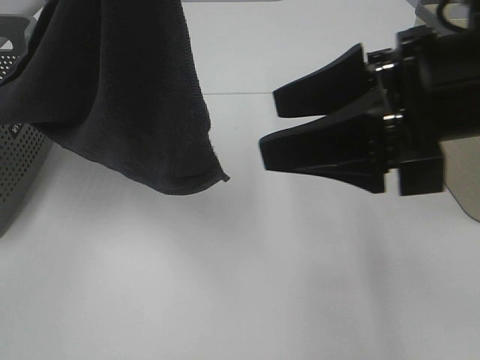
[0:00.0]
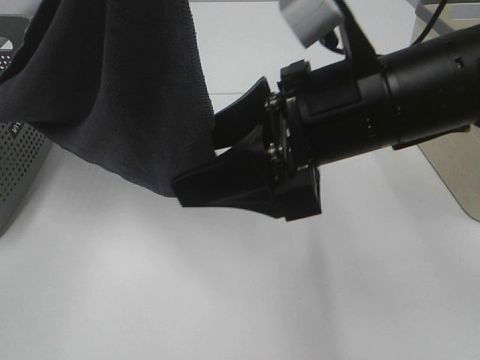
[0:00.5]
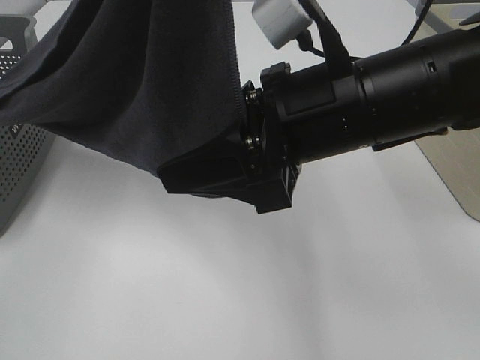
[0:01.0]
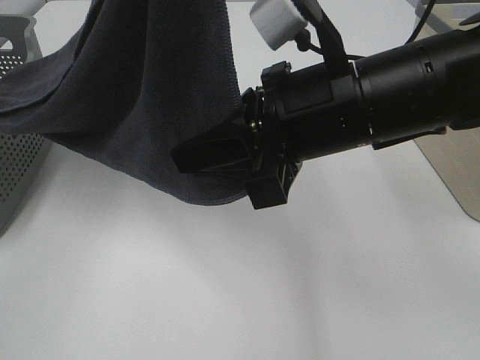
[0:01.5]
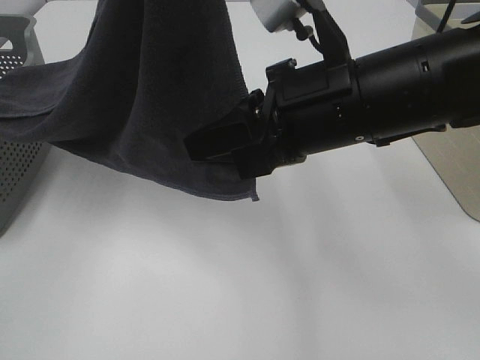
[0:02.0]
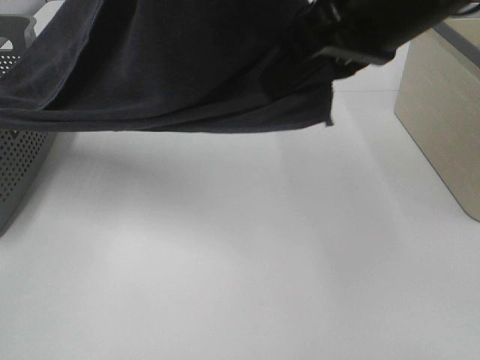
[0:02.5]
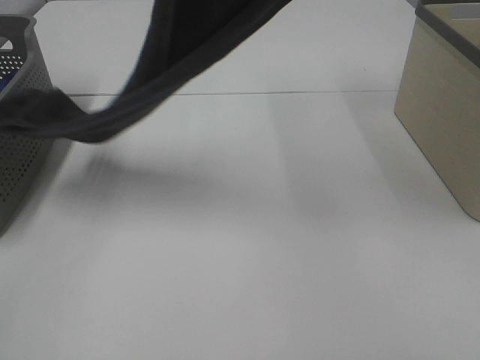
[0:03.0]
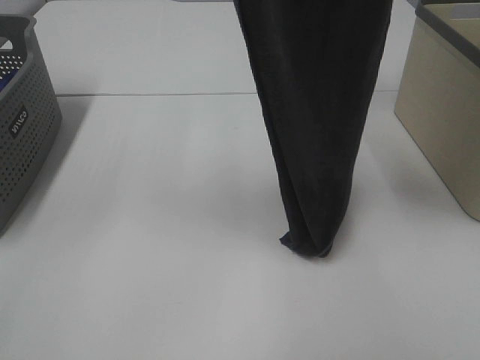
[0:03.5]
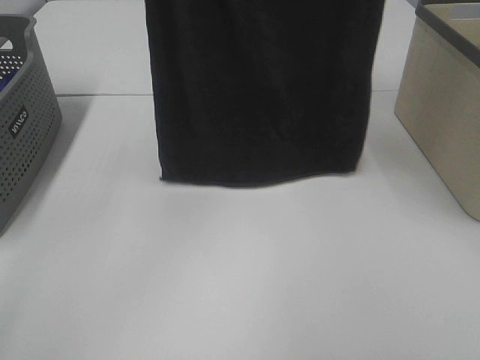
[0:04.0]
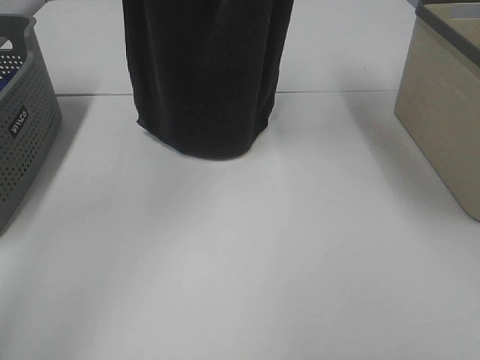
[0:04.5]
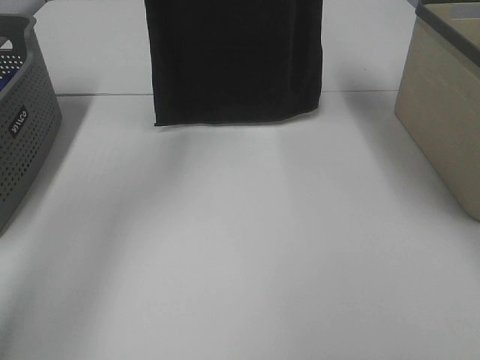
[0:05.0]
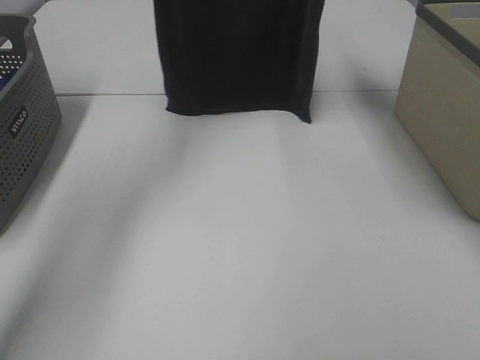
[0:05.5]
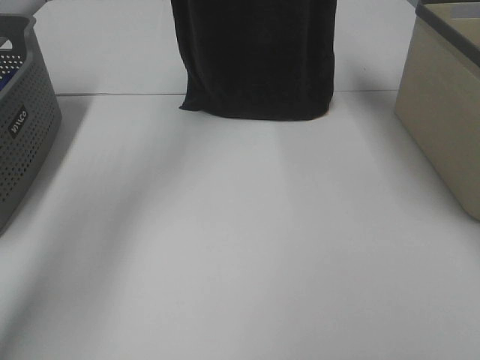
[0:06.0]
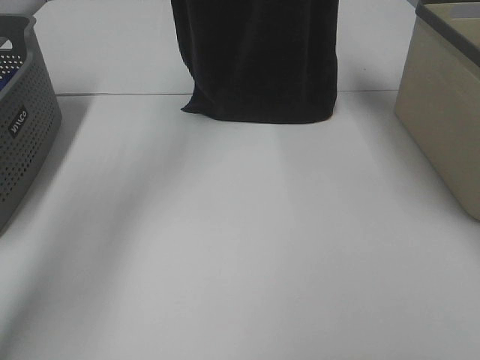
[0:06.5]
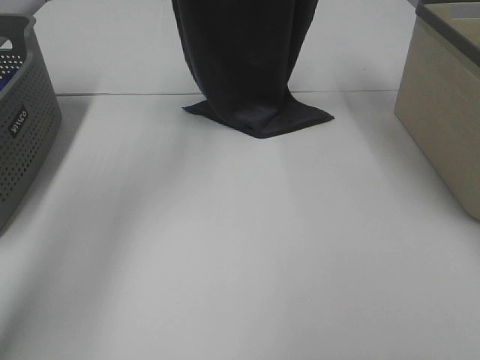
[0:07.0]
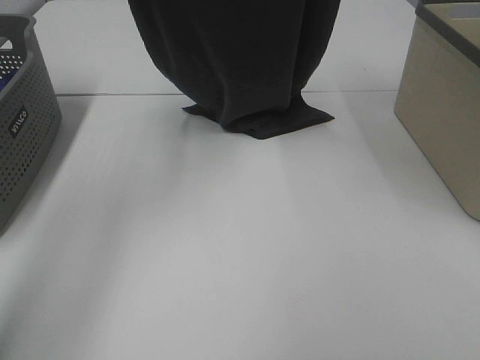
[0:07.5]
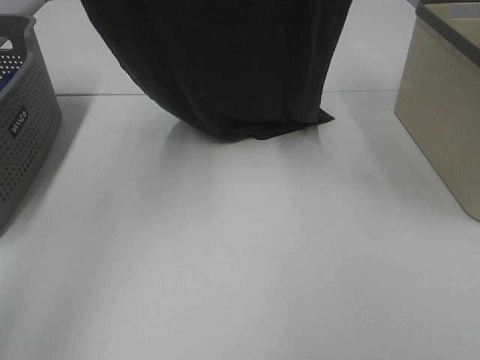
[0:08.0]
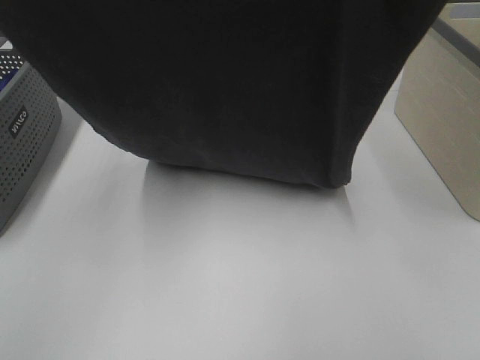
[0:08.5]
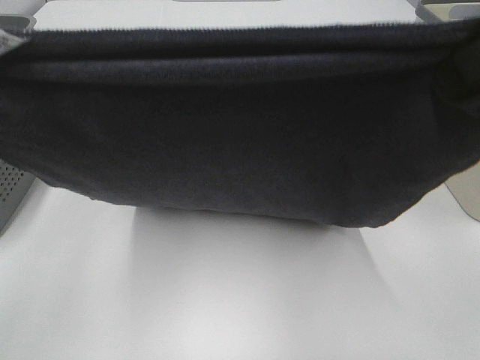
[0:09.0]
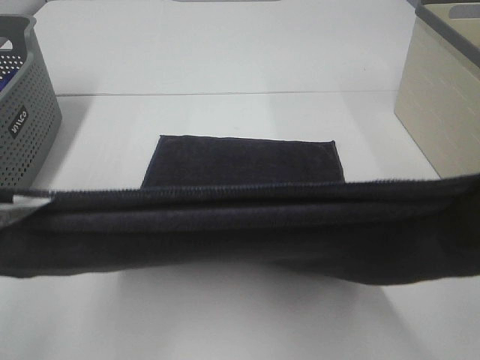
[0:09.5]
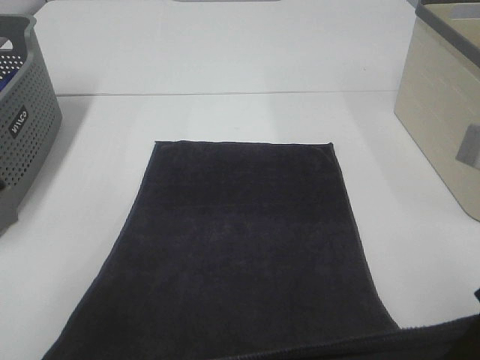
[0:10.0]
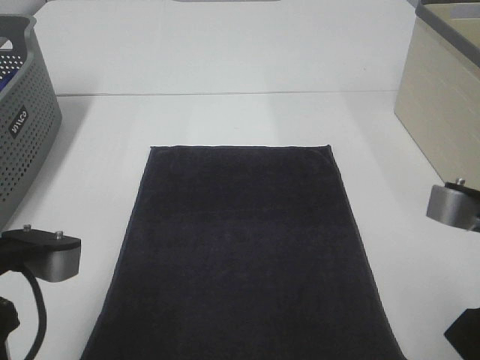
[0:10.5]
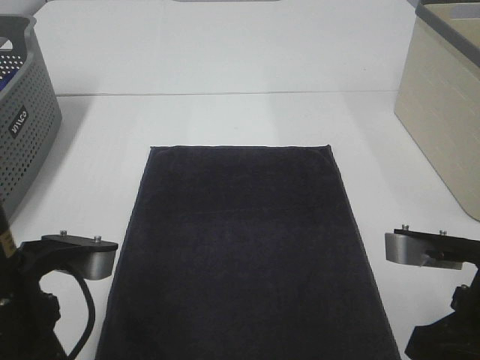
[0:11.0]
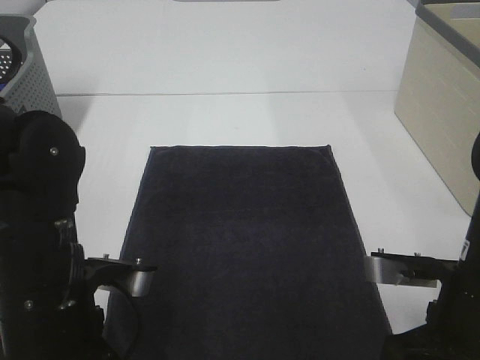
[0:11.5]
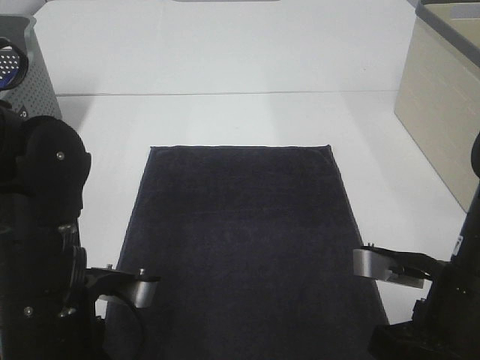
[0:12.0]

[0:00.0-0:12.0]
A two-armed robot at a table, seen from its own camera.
Task of the whole recording: Remove the towel and place it.
Step, 0:02.0 to 0:08.5: Left hand: spread the grey towel flat on the table.
Step, 0:02.0 to 0:08.5: Right hand: spread the grey towel flat on the table.
0:00.0 to 0:02.0: The right gripper shifts approximately 5 cm to the left, and closes its fingers.
0:02.0 to 0:04.0: The right gripper is displaced upward by some 30 cm. The left gripper shifts about 15 cm forward and to the left.
0:04.0 to 0:06.0: The right gripper is displaced forward by roughly 15 cm; the left gripper moves forward and downward, some 20 cm.
0:06.0 to 0:08.0: The two grippers go about 15 cm backward.
0:08.0 to 0:10.0: The grippers both shift backward and downward by some 30 cm.
0:10.0 to 0:12.0: The left gripper is displaced downward and to the right by some 10 cm, while the right gripper shifts about 10 cm downward.

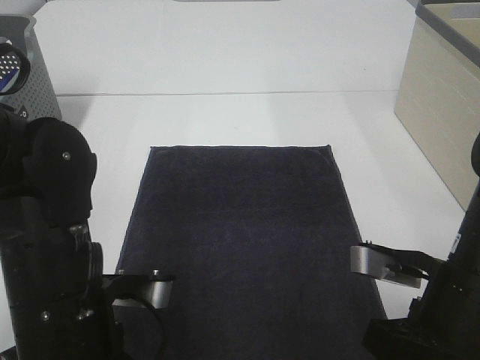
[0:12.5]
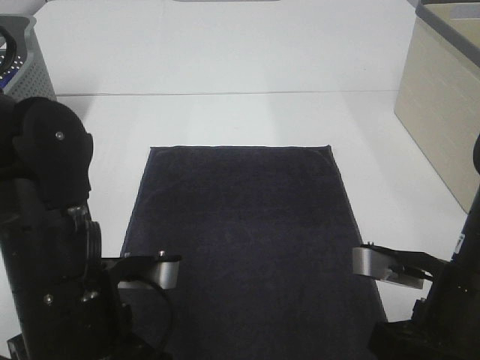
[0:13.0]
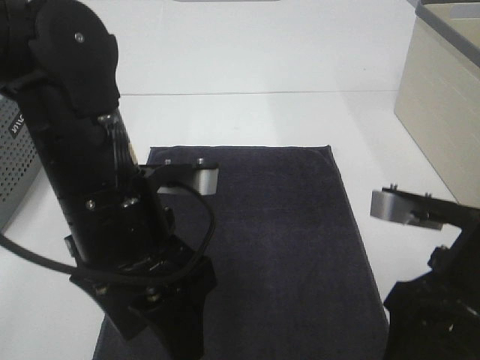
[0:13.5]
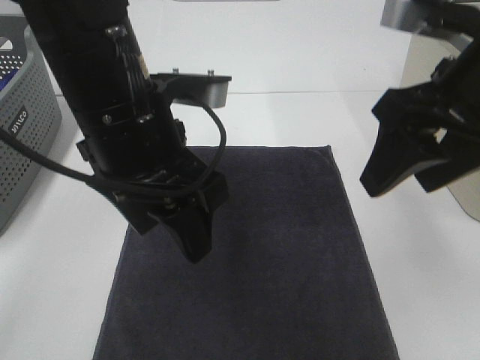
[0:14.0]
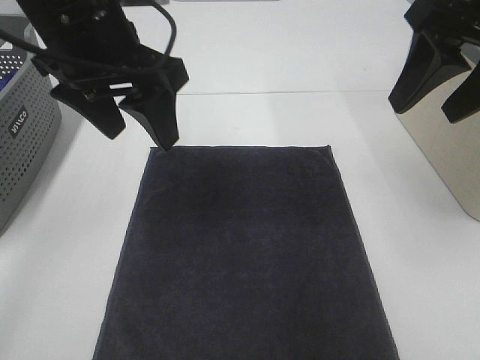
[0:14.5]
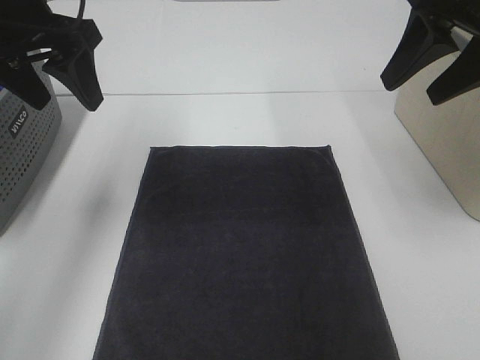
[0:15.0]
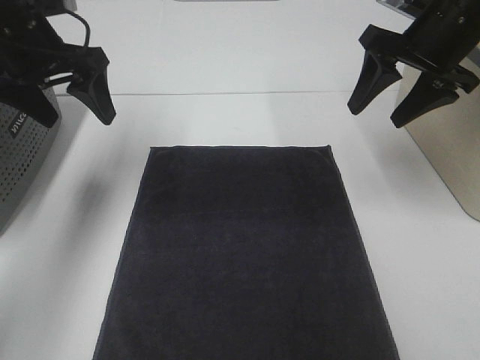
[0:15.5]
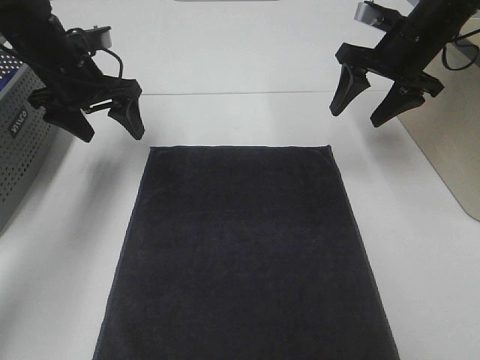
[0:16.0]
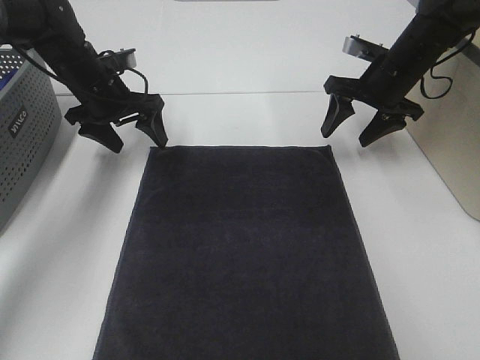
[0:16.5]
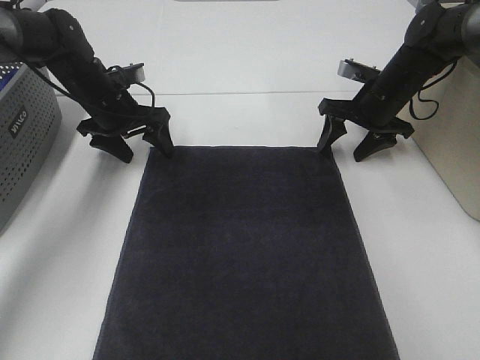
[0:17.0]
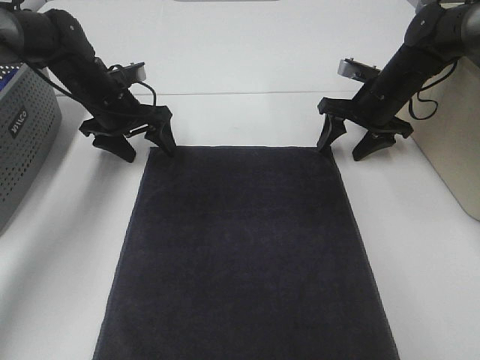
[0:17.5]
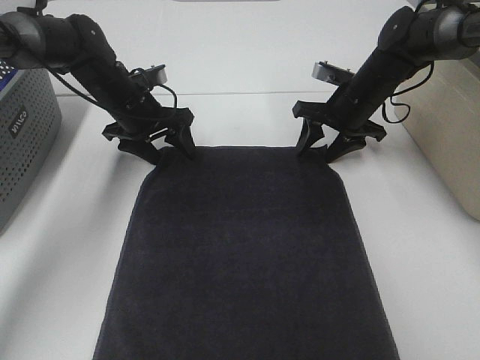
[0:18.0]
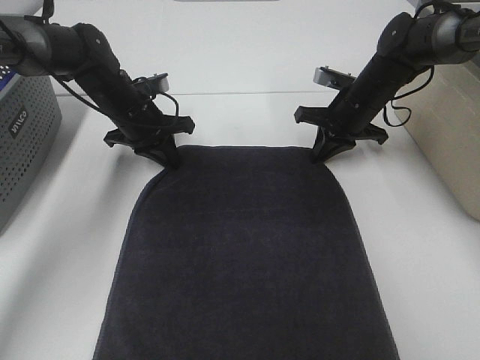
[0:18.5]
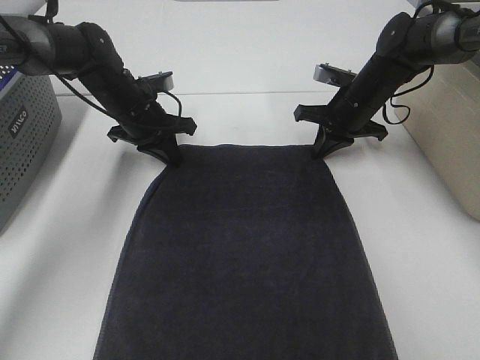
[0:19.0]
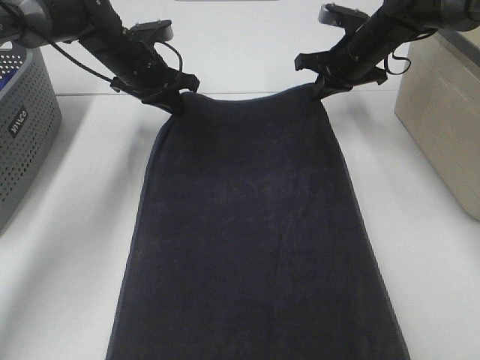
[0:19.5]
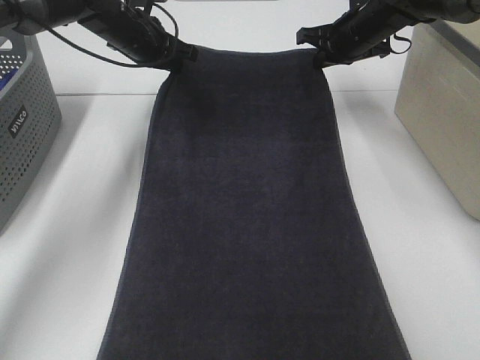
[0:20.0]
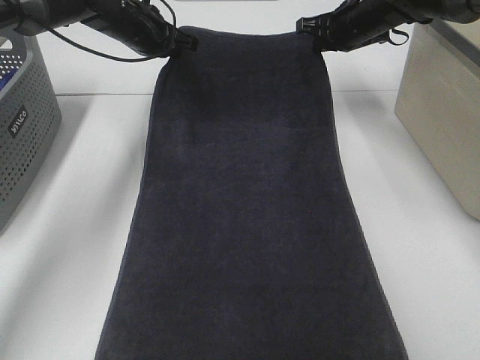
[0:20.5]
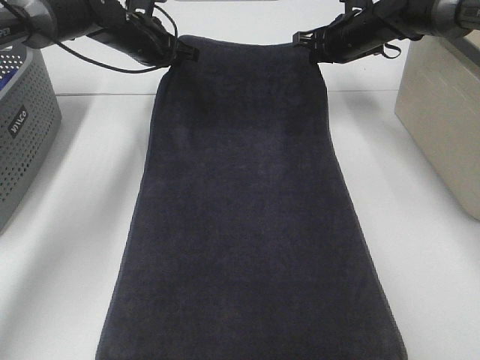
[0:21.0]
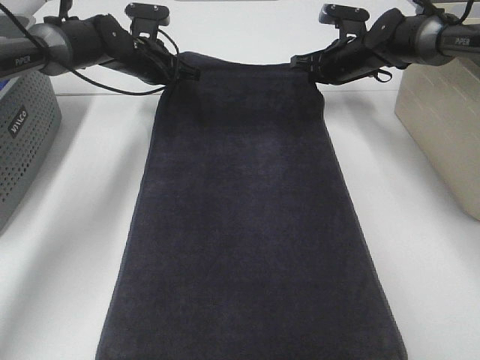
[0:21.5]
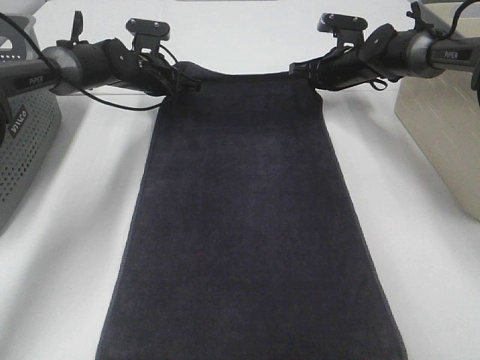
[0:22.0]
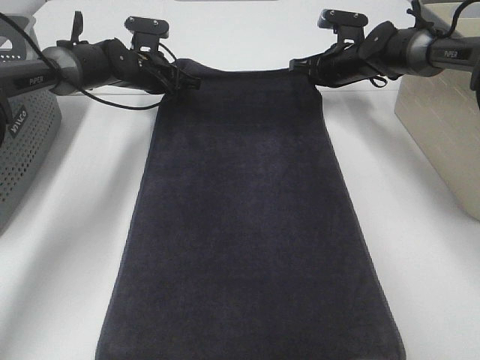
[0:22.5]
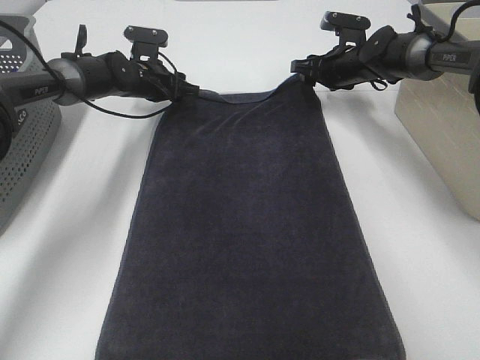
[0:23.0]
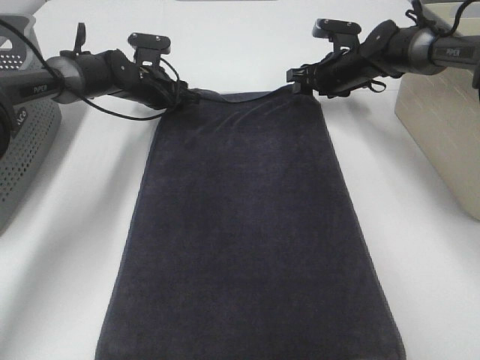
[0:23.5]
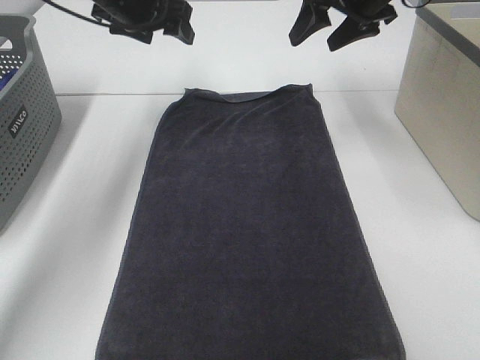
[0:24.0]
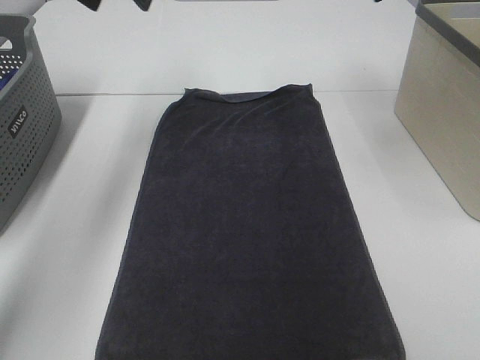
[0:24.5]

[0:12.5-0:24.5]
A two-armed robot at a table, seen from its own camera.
Task of the whole recording: Remove the towel and place it.
Step, 0:12.5 to 0:16.5: Left hand:adjust the gray towel.
Step, 0:12.5 to 0:16.5: Right hand:adjust the gray towel.
0:12.5 to 0:14.5: The grippers both shift upward and forward by about 20 cm.
0:14.5 to 0:16.5: The right gripper goes some 25 cm forward and downward. Meanwhile the left gripper travels forward, downward and to the left by roughly 25 cm.
0:16.5 to 0:18.5: The left gripper shifts by approximately 5 cm, and closes its fingers; the right gripper shifts some 5 cm downward, and closes up.
0:18.5 to 0:20.5: Both grippers travel together upward and forward, roughly 10 cm.
0:20.5 to 0:22.5: Both grippers move downward, approximately 10 cm.
0:22.5 to 0:24.5: Both grippers travel together upward and backward, approximately 30 cm. The right gripper opens; the left gripper opens.

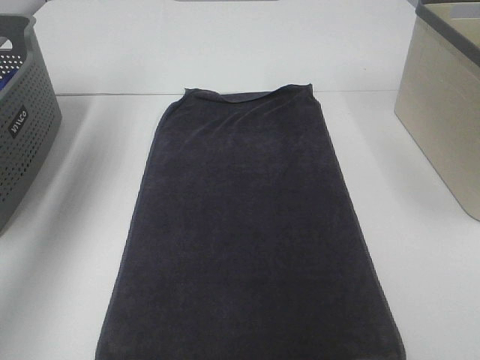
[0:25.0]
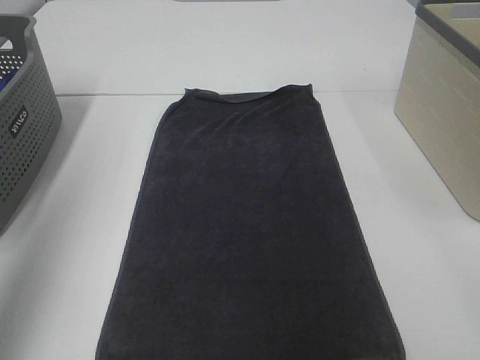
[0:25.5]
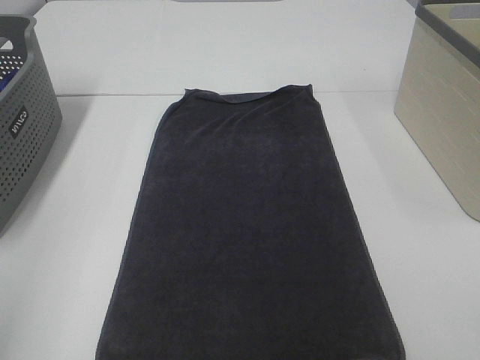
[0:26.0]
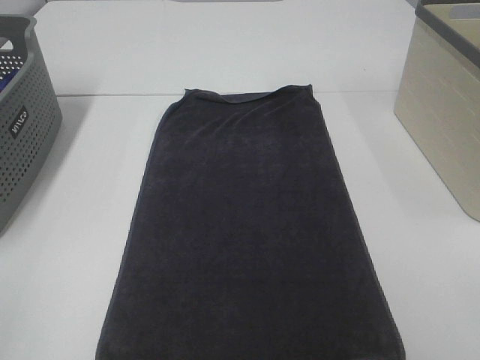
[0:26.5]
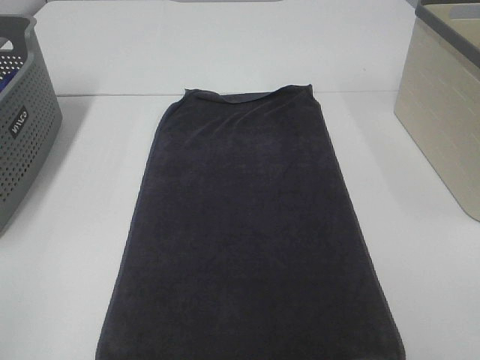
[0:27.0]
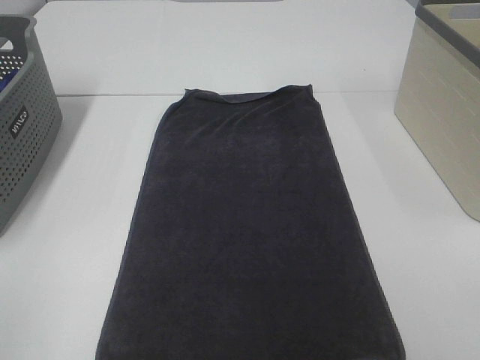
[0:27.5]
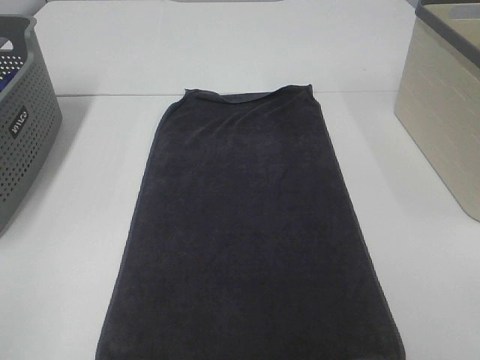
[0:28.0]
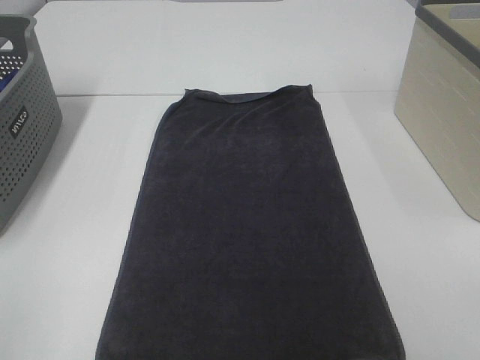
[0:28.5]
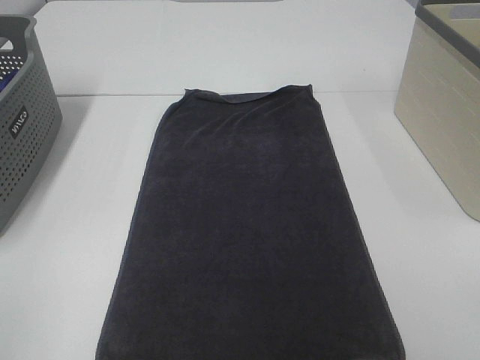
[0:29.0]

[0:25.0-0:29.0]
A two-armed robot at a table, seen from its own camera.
Task of the whole recording: Remove the towel and place it.
0:25.0 to 0:27.0: The left gripper shifts roughly 40 cm backward.
